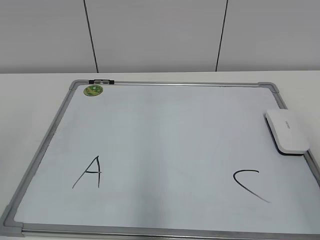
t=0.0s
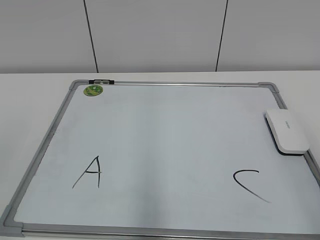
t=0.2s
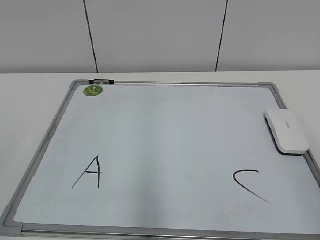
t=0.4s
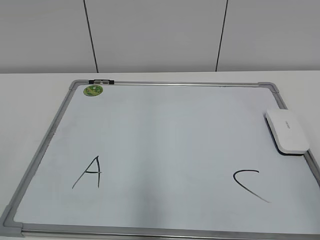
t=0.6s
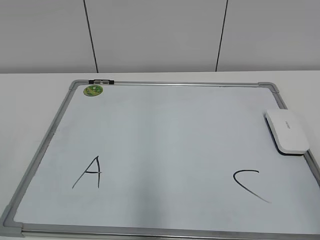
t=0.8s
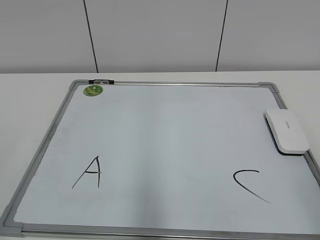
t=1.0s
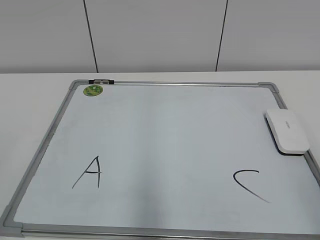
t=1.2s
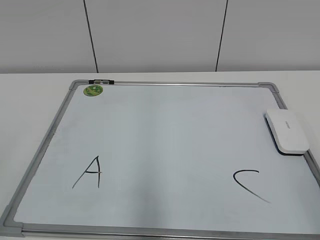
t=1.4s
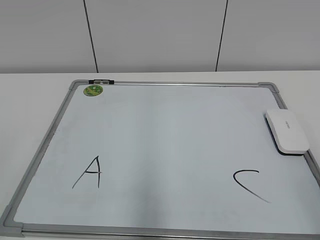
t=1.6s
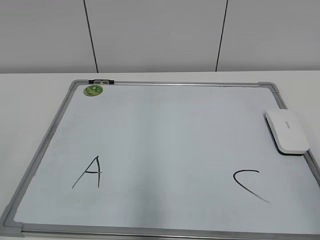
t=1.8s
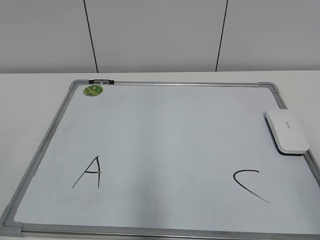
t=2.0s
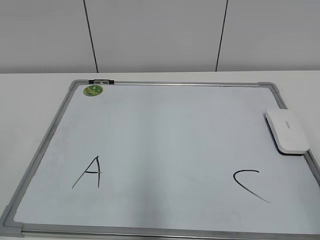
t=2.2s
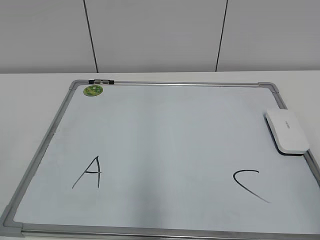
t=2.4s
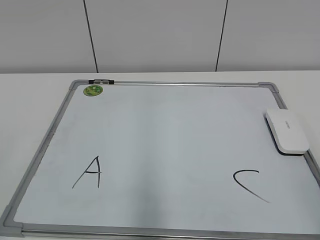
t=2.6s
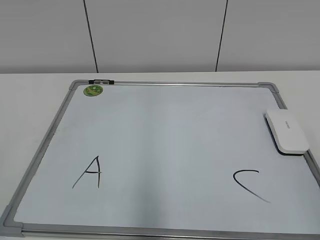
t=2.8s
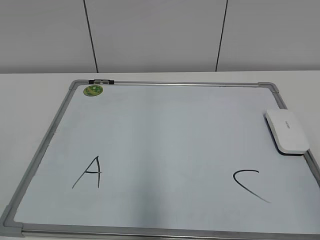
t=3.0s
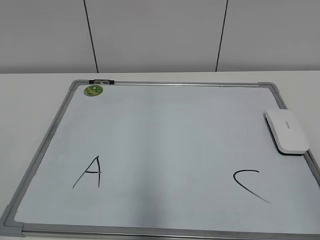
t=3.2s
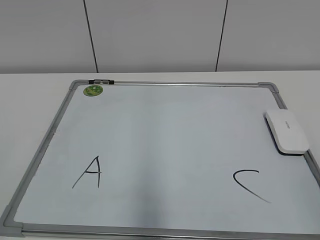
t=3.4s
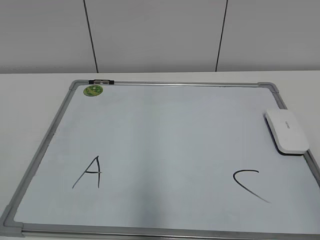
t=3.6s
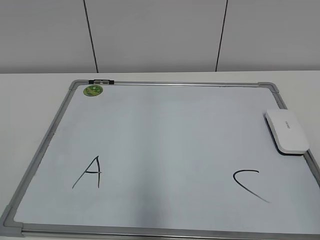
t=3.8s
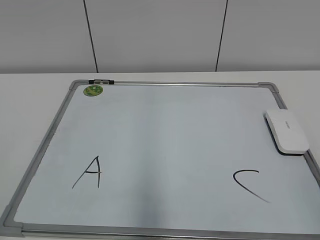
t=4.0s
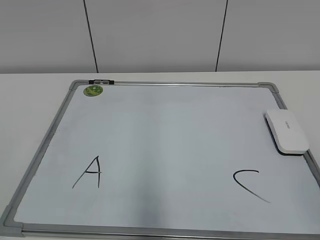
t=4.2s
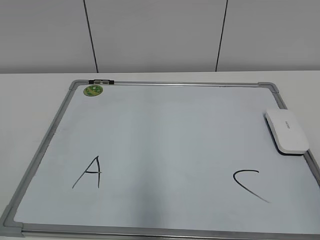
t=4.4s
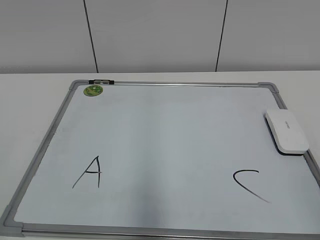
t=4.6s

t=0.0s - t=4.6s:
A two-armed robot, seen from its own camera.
Task of the whole recording: pick up the eraser on the blackboard and erase the letter "B".
t=3.0s - t=4.6s: Both grippers stay about where they are.

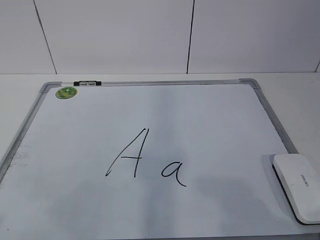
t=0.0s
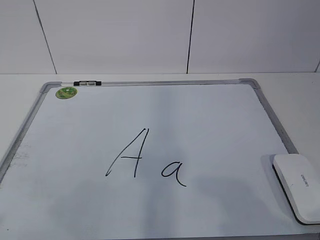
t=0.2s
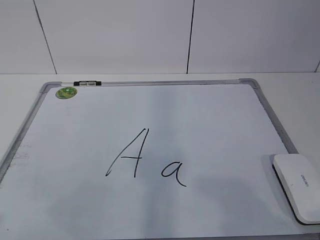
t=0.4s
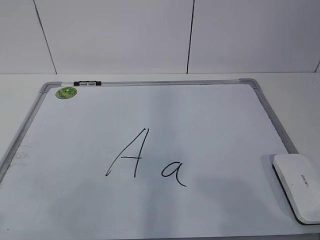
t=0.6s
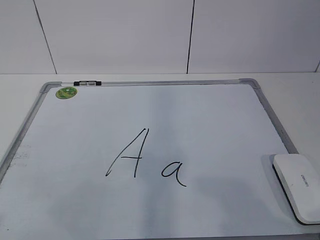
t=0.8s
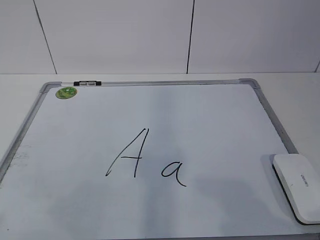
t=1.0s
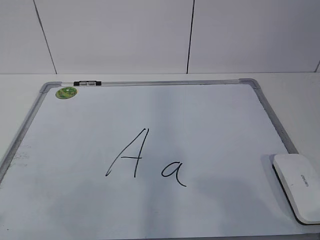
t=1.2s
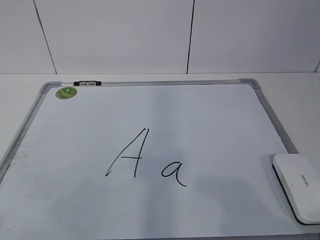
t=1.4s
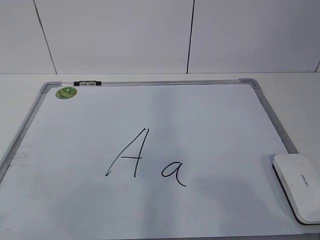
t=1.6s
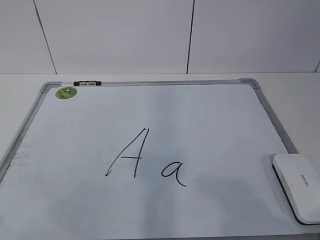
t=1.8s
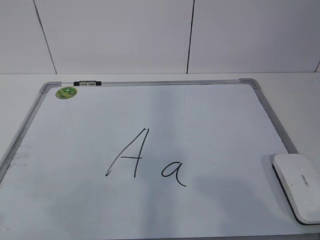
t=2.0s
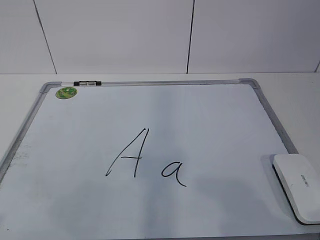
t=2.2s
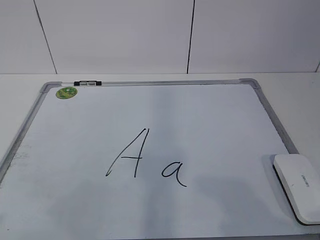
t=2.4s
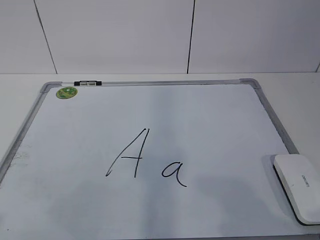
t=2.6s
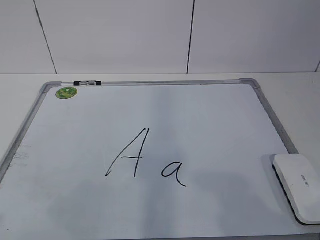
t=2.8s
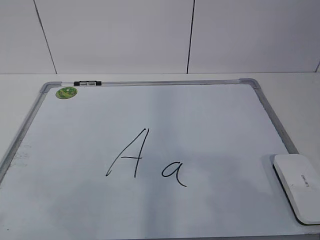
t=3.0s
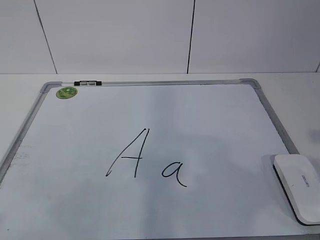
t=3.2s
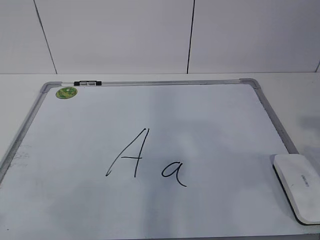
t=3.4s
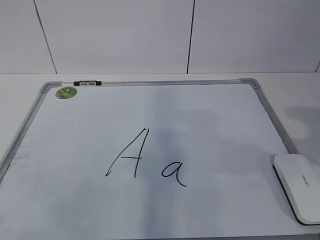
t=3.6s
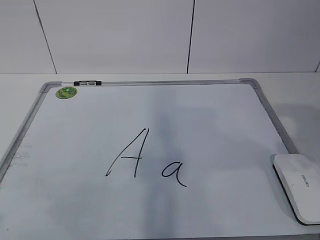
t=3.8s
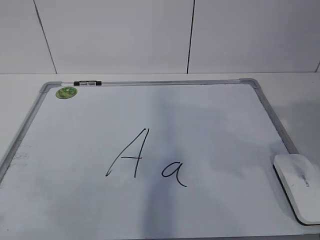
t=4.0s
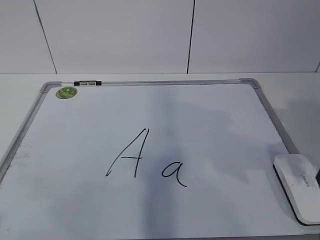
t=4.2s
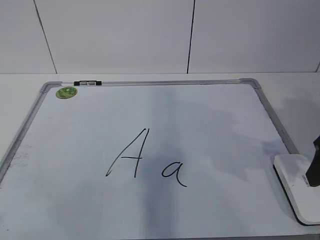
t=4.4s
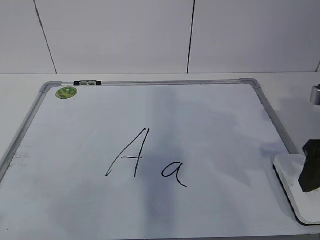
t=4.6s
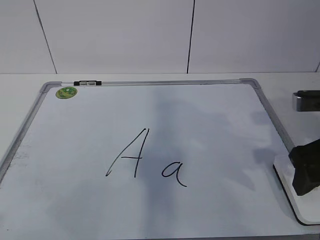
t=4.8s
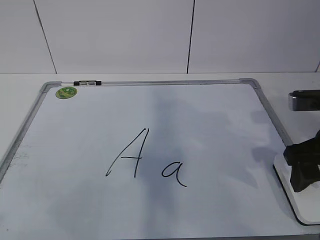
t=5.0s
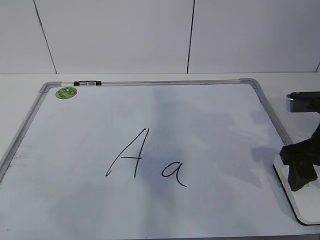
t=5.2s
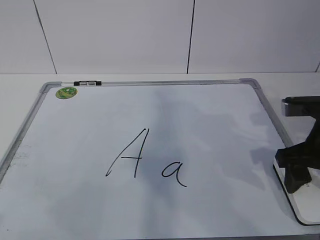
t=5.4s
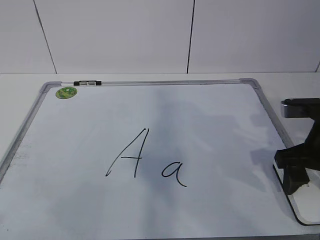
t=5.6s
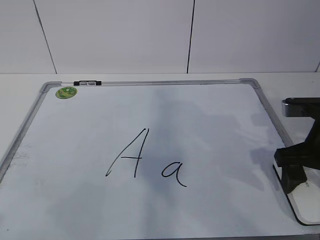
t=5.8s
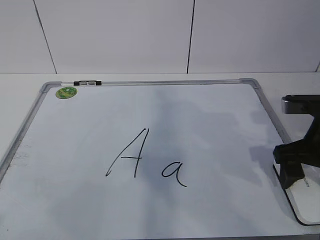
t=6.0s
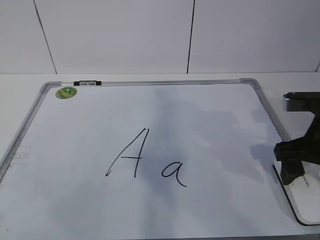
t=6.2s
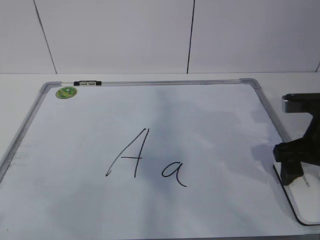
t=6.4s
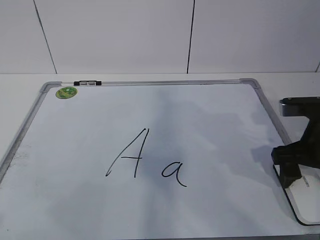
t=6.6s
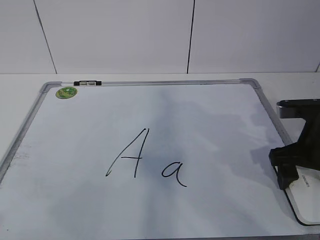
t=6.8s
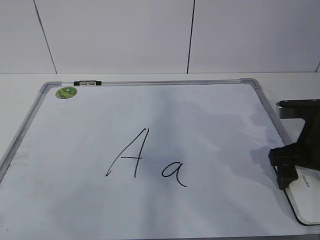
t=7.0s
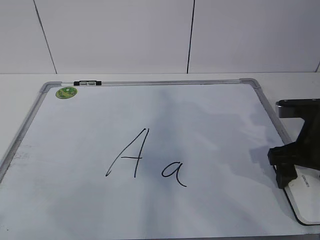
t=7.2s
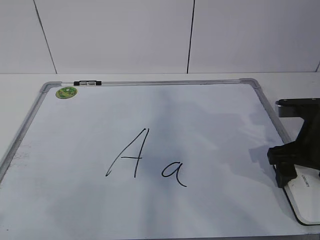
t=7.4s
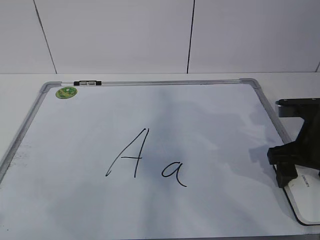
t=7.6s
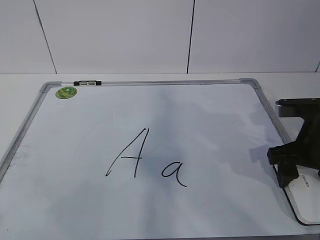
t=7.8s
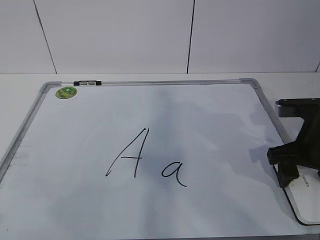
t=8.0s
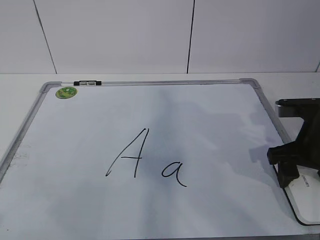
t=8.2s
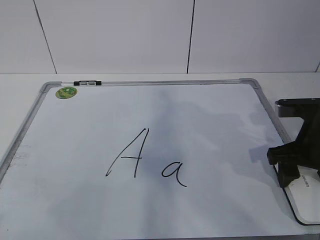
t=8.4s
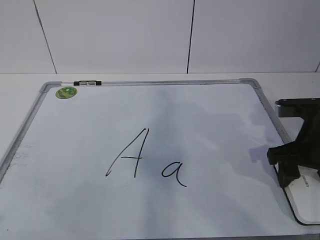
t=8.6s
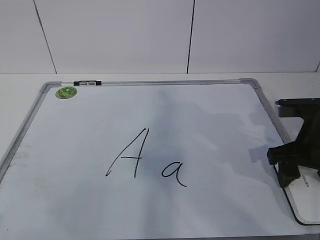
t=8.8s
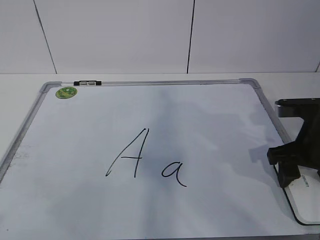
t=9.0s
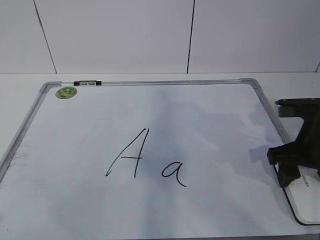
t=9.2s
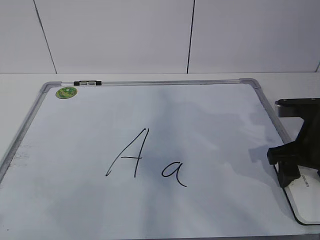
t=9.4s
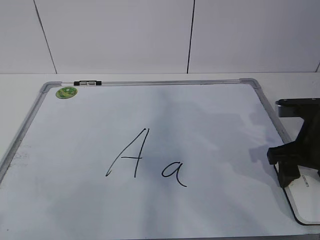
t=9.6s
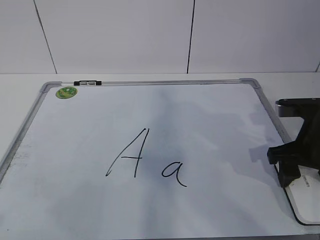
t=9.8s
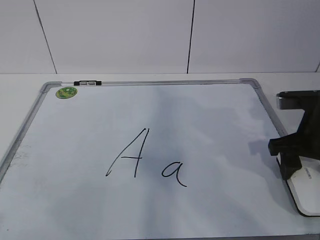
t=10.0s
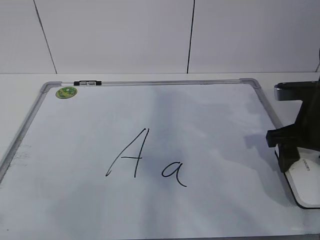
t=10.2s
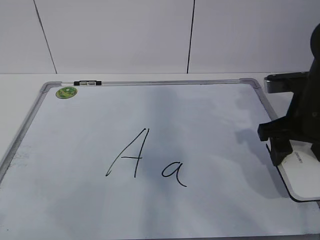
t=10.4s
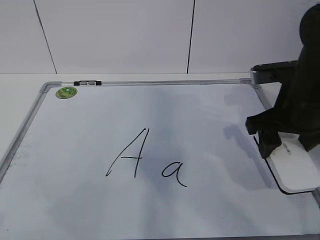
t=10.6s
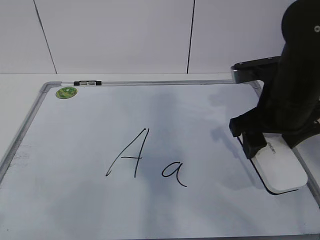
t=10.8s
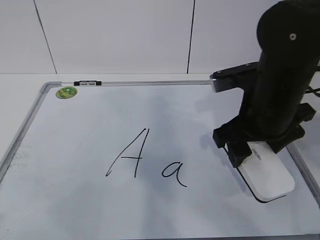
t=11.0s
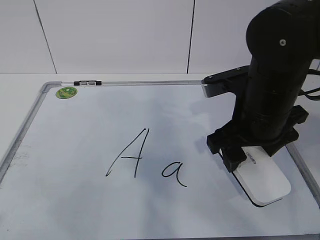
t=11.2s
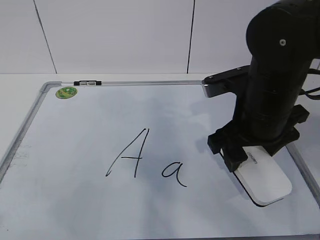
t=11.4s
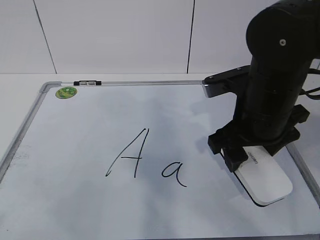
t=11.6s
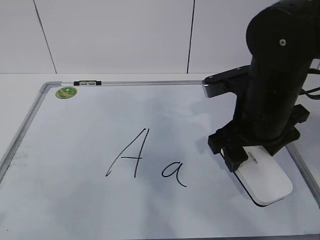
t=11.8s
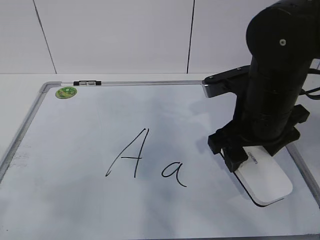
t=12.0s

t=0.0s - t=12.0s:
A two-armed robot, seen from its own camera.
Task of the whole recording: pick up the eraser on the blackboard and erase the letter "a".
Step, t=0.0s - t=8.0s: Grab the eraser with your right hand.
t=3.0s - t=4.4s: The right gripper shifts about 20 cm forward.
t=4.4s - t=6.0s: The right gripper ends up about 5 cm from where it was, and opens its fingers.
t=6.0s - t=7.6s: The grippers stay close to where they were, moving slightly.
t=9.0s - t=10.4s: The right gripper shifts by approximately 5 cm.
t=10.4s - t=12.0s: The right gripper shifts about 10 cm to the left.

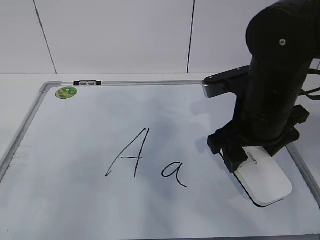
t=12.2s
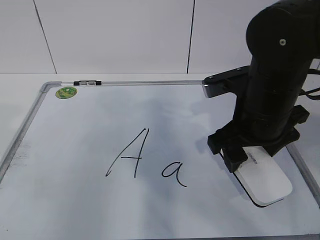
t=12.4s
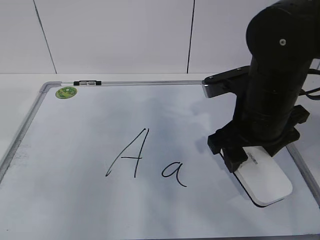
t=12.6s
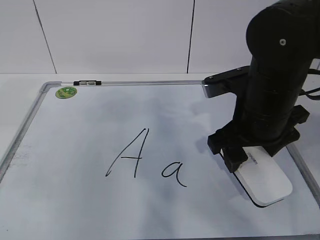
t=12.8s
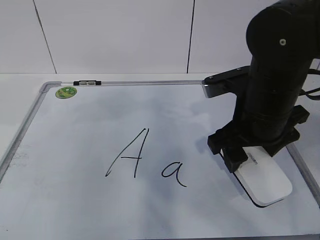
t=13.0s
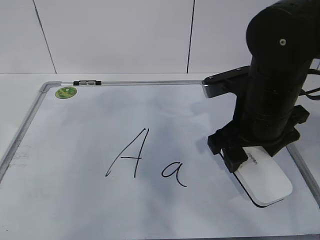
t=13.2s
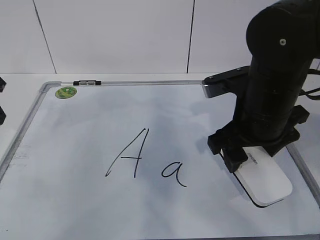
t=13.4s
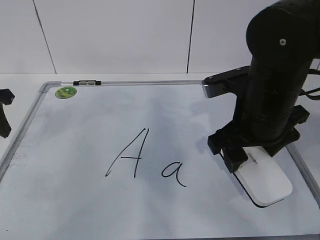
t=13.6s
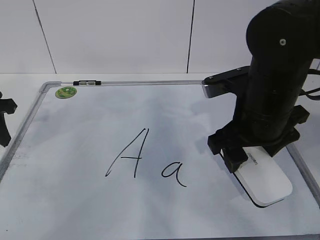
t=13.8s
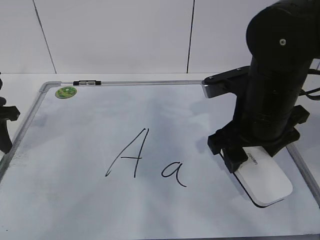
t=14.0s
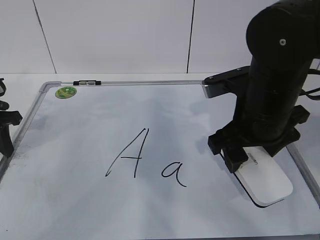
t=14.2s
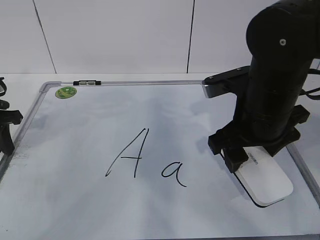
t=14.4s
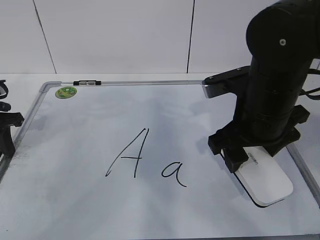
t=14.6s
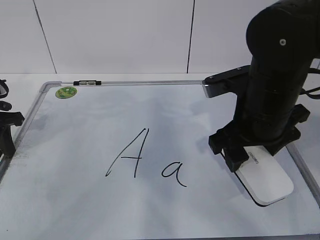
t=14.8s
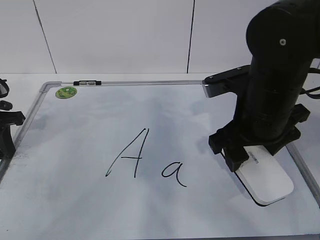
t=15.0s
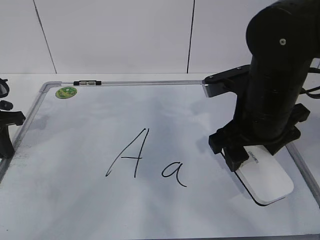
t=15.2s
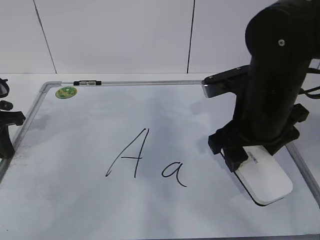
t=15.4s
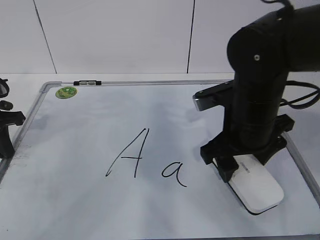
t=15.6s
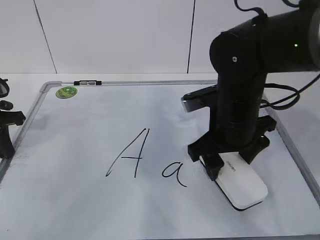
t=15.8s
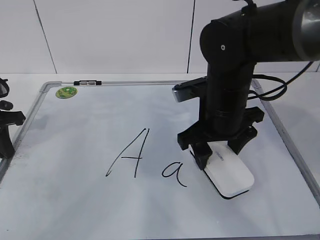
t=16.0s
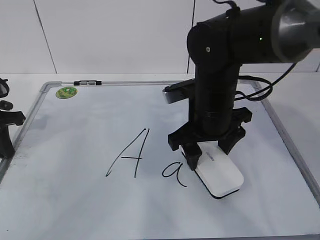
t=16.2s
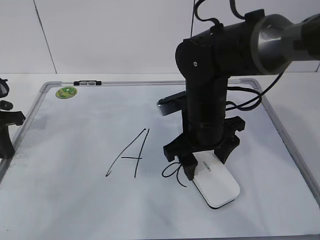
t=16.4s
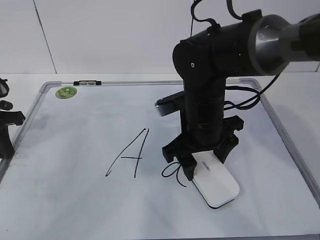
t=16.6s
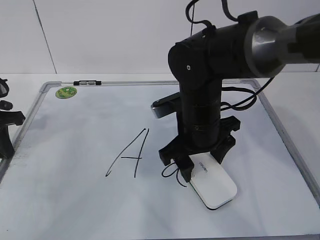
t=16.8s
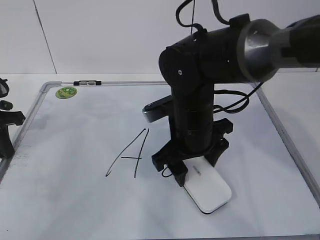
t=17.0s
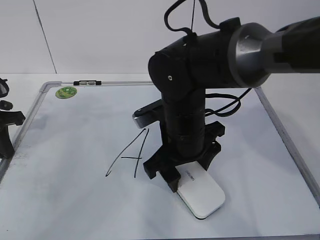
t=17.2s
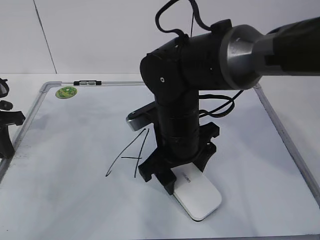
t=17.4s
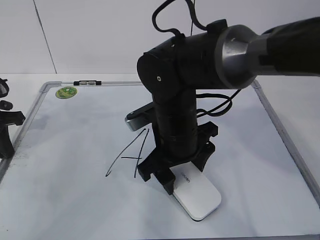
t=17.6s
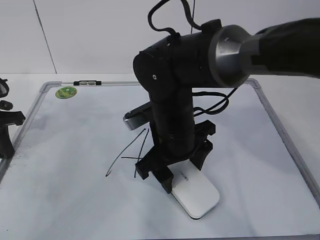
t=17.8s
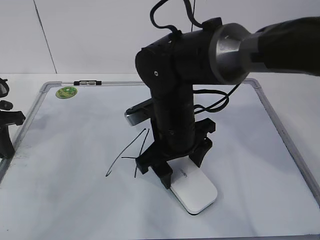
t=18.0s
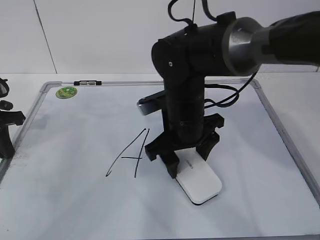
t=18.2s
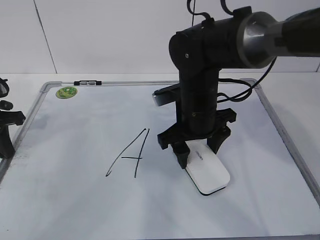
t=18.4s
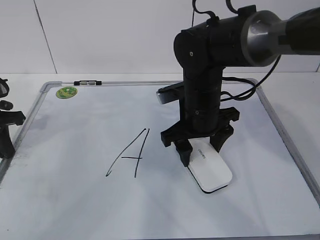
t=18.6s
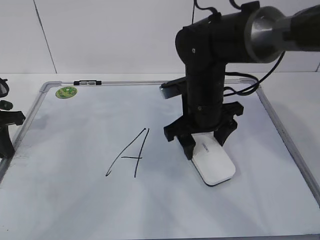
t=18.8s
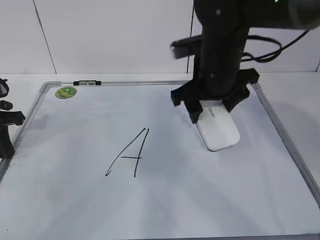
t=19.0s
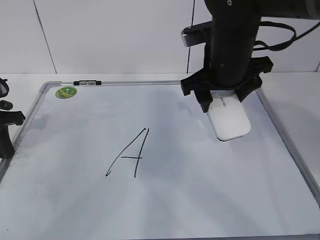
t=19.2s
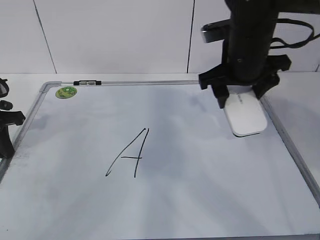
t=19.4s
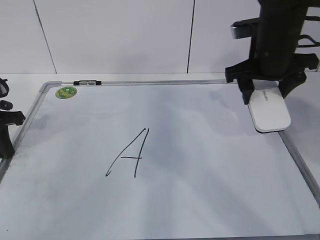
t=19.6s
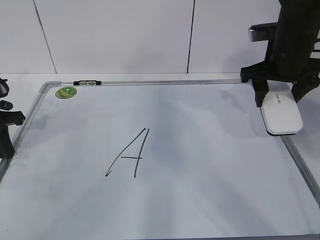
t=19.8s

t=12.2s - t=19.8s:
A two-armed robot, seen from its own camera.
Task of the whole recording: pick up the eraser on the blackboard and erase the letter "a".
Step, t=15.6s - t=19.0s: Put down the eraser with your right hand.
t=12.2s - t=13.8s: The left gripper goes approximately 30 cm forward and downward.
t=13.8s - t=15.2s: The left gripper closes.
t=15.2s - t=16.8s: The right gripper travels to the left and downward by some 10 cm.
t=16.8s - t=18.2s: The grippers stay close to where they were, moving slightly.
t=18.2s - t=19.8s: The right gripper travels to the right and upward by roughly 20 cm.
